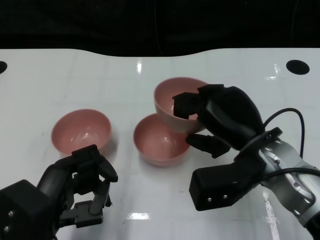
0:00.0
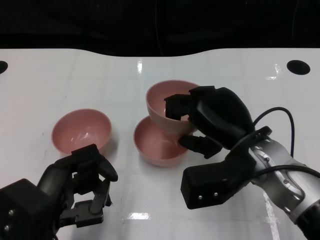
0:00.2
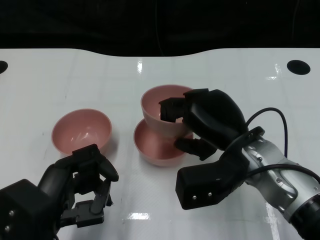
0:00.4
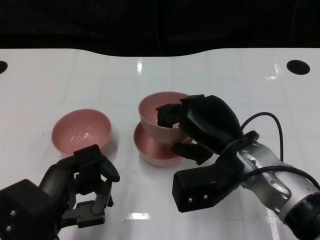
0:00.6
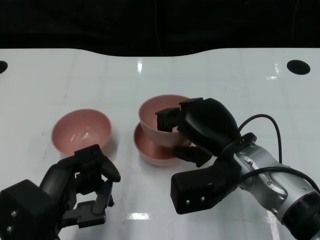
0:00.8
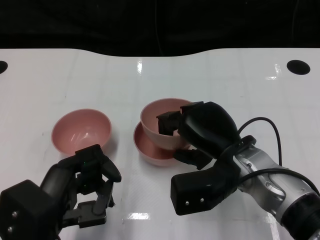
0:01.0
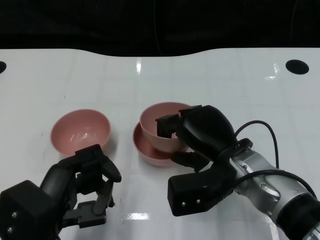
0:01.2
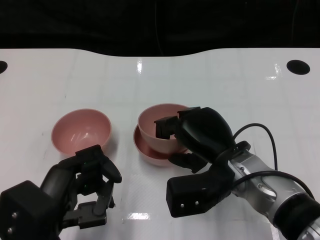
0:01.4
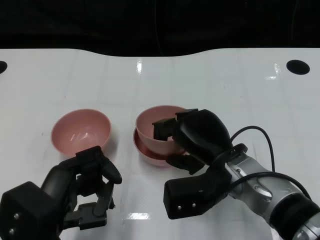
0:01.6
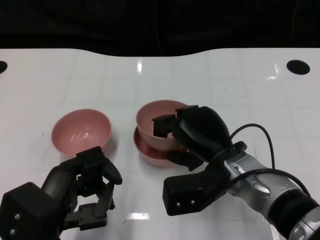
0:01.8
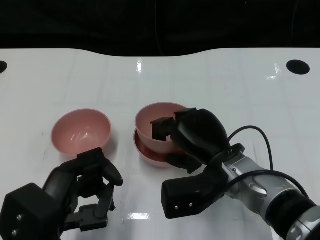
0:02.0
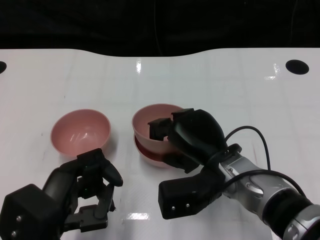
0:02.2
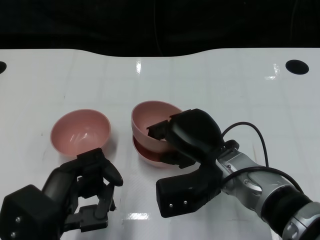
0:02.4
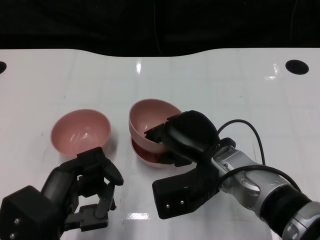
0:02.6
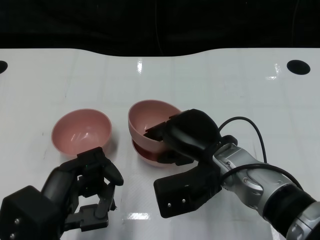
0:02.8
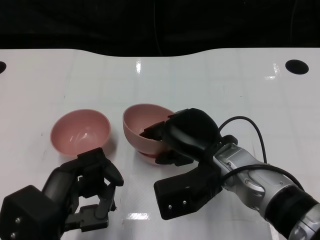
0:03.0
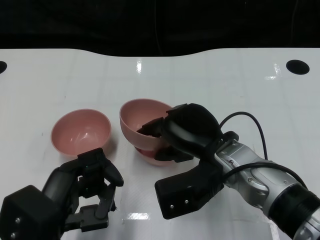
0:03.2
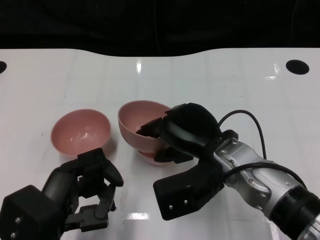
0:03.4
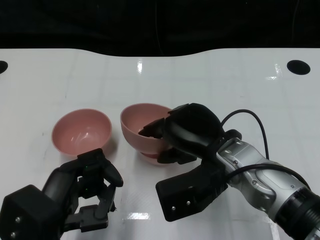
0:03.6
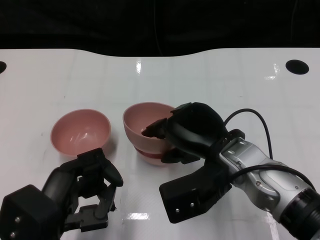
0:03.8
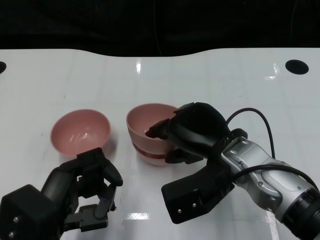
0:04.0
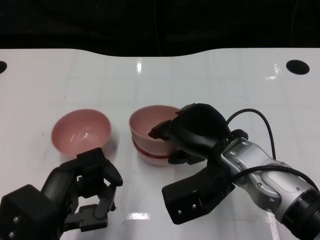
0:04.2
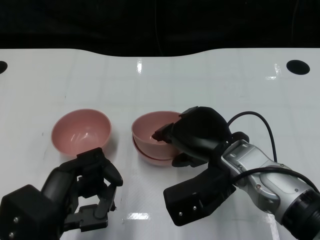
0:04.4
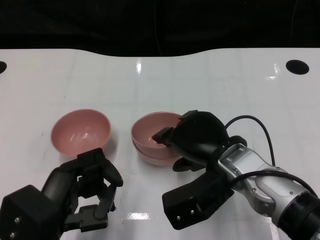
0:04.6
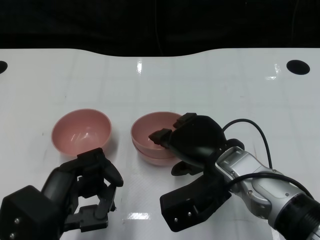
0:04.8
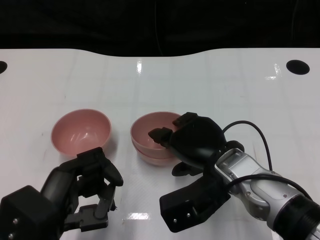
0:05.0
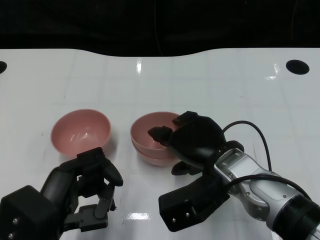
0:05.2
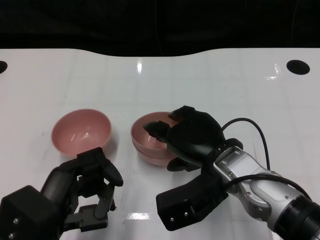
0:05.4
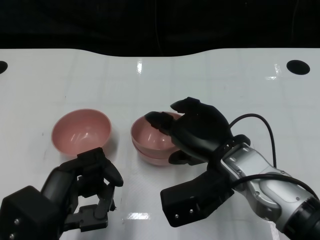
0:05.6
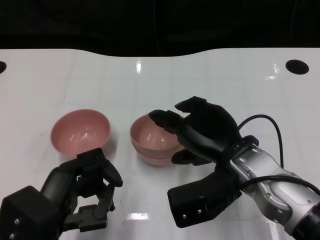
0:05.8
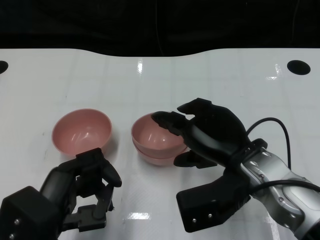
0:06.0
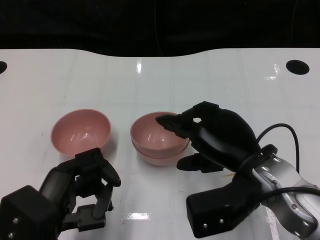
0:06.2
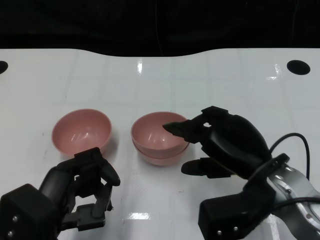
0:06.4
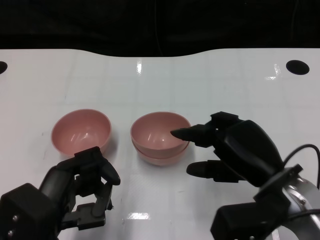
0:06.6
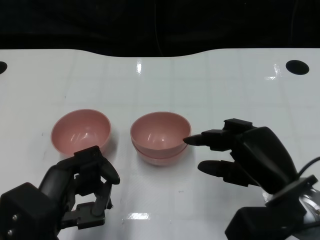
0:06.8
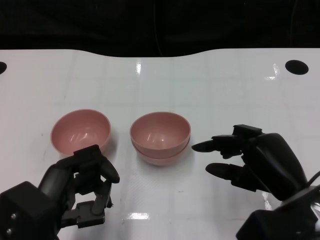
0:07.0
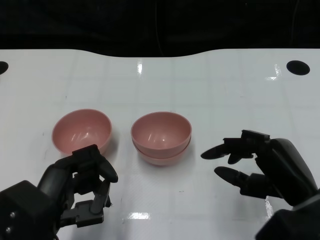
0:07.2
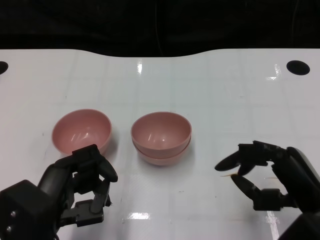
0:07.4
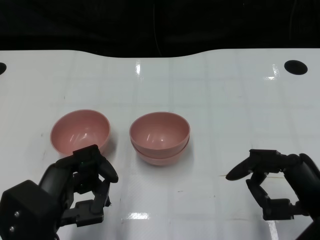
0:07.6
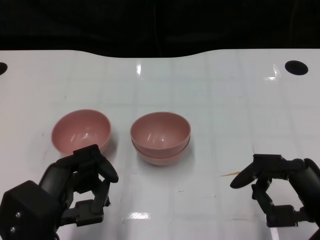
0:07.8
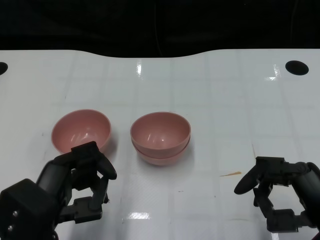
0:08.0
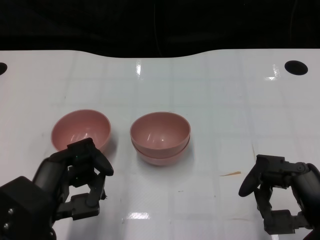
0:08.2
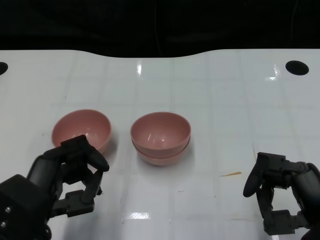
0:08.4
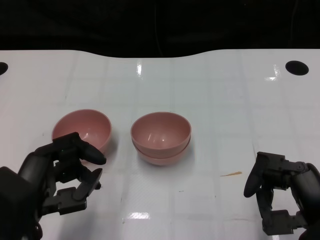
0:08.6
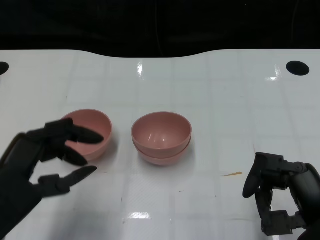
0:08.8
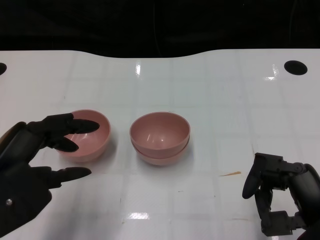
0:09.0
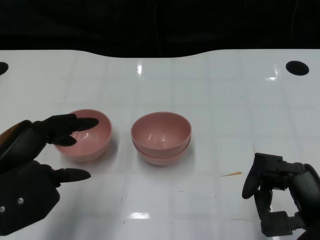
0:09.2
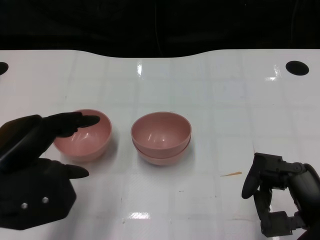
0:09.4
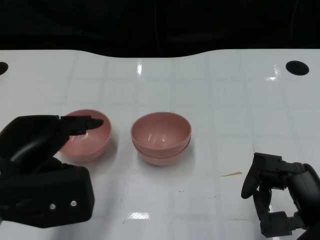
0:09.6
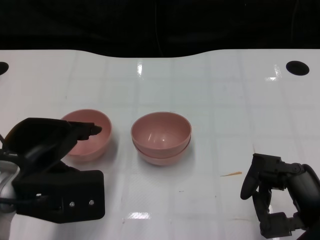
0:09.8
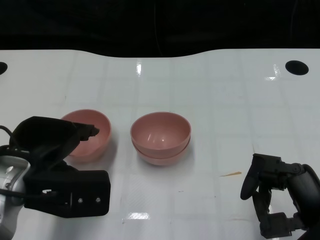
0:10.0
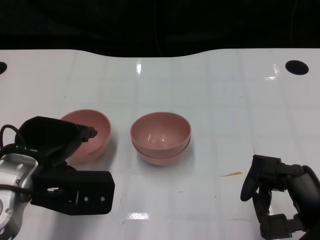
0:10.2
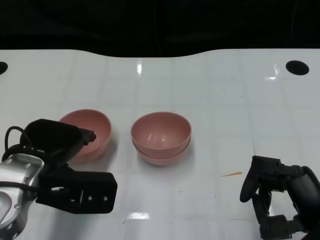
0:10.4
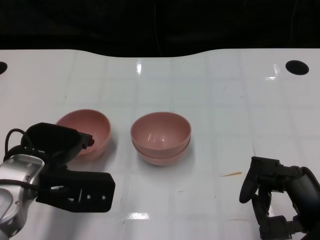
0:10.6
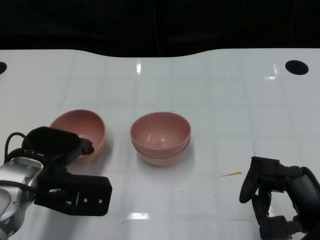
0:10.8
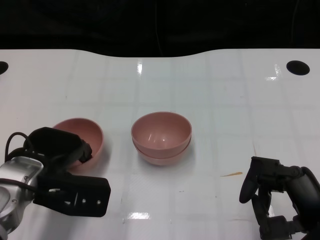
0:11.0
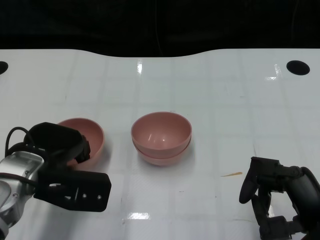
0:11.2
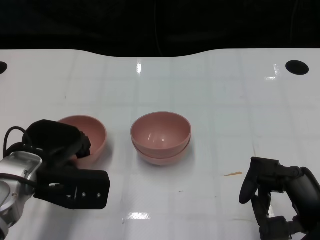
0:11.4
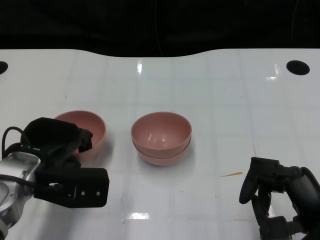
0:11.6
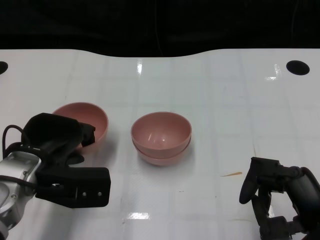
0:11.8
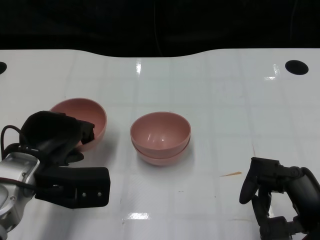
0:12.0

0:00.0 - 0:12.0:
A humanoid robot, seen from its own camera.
Task of the whole recording: Pick up the bowl on one side of the table and place it on top of the middle bowl, then pick up the bowl on the other side of the table and place it on top of the middle bowls.
Step, 0:00.0 - 0:06.2: Place the bowl on the right onto the bowl in the middle with right gripper.
Step, 0:06.4 - 0:11.6: Grasp the bowl on the left with the left gripper.
0:00.0 - 0:01.6: The right hand moves about 5 cm.
0:01.6 - 0:03.0: There are only small adjustments of the hands.
0:03.0 - 0:06.0: There are only small adjustments of the hands.
0:06.0 - 0:07.6: The right hand travels to the right and backward by about 15 cm.
0:07.6 - 0:09.0: The left hand travels upward by roughly 5 cm.
0:09.0 - 0:10.4: The left hand shifts some 5 cm forward.
0:10.4 - 0:12.0: There are only small adjustments of the hands.

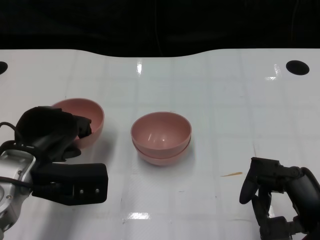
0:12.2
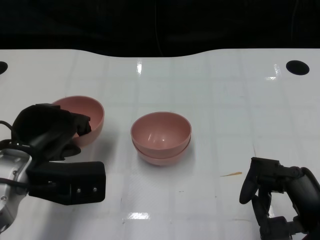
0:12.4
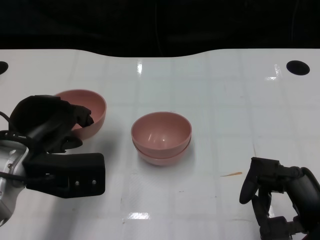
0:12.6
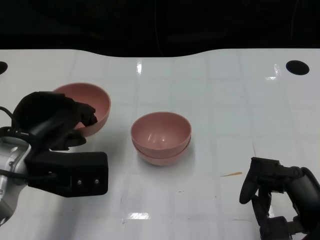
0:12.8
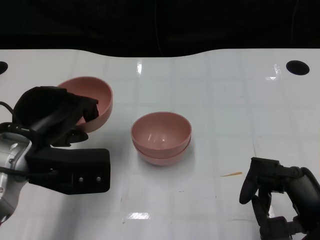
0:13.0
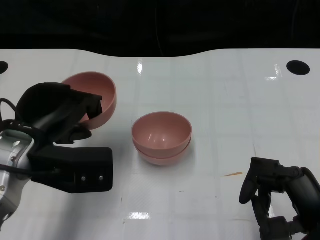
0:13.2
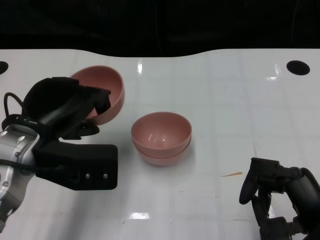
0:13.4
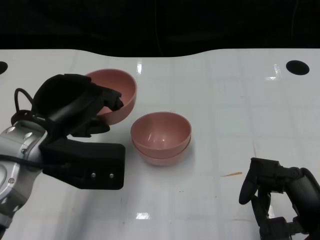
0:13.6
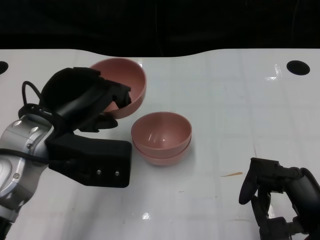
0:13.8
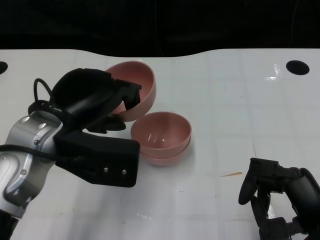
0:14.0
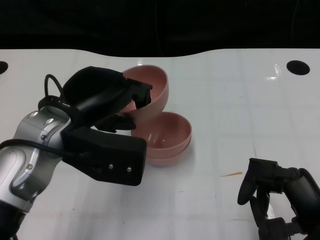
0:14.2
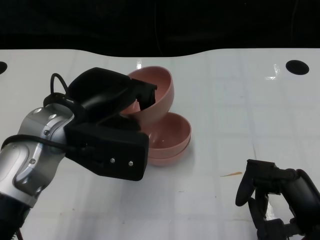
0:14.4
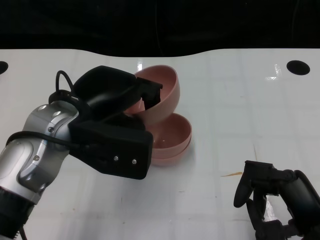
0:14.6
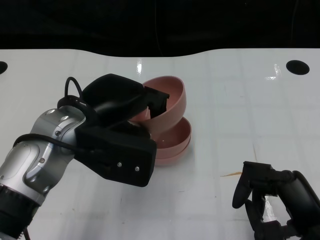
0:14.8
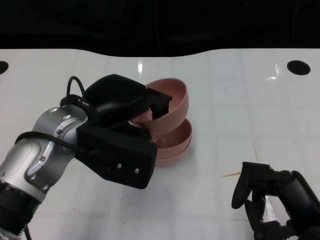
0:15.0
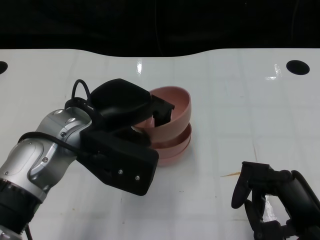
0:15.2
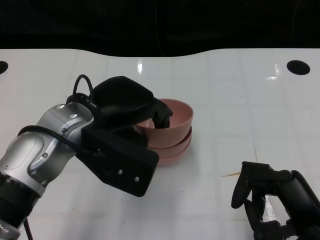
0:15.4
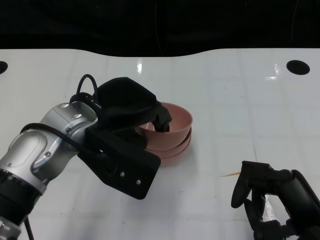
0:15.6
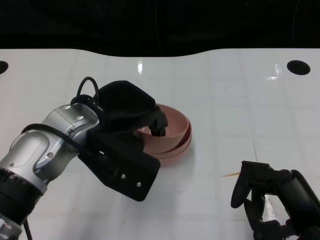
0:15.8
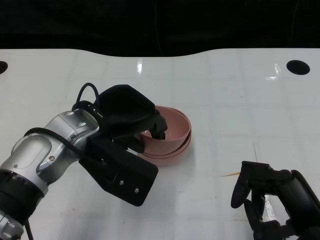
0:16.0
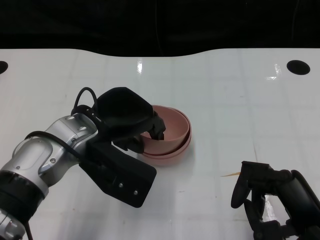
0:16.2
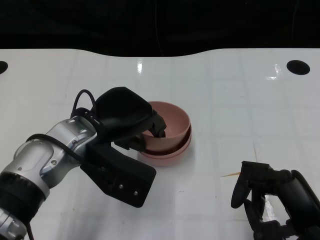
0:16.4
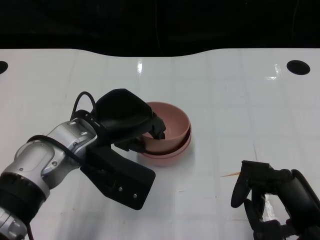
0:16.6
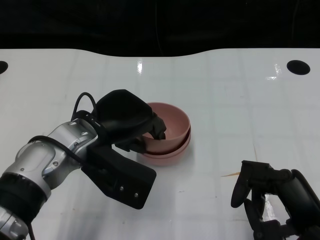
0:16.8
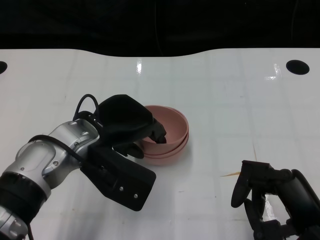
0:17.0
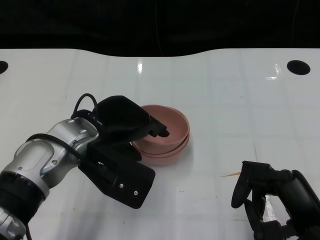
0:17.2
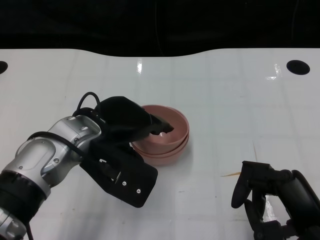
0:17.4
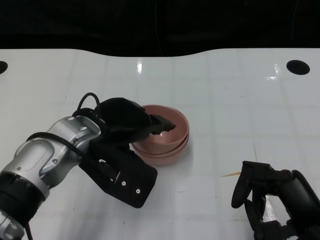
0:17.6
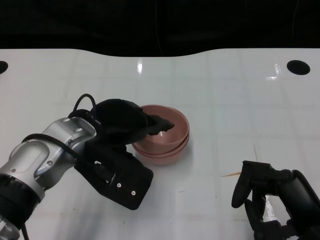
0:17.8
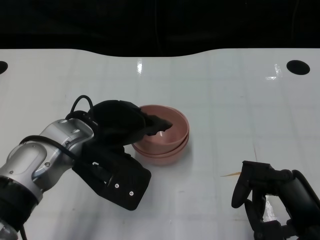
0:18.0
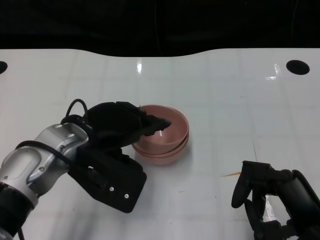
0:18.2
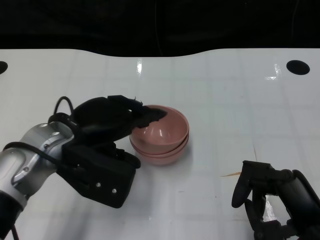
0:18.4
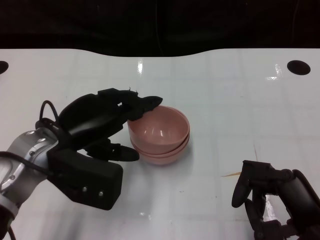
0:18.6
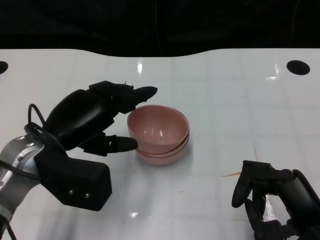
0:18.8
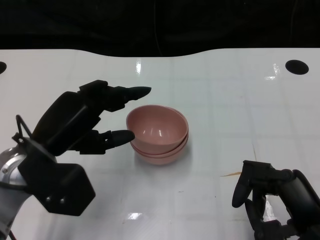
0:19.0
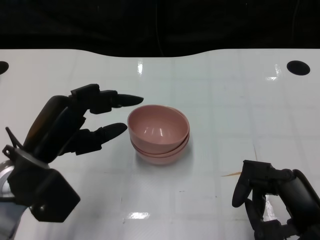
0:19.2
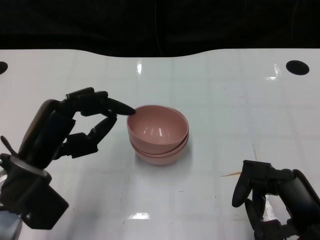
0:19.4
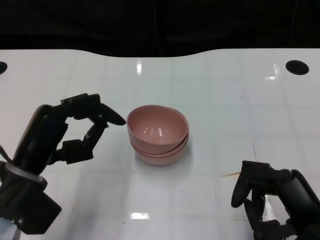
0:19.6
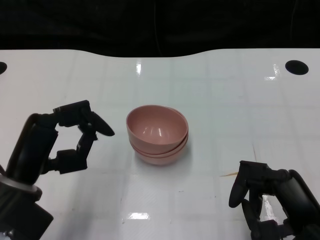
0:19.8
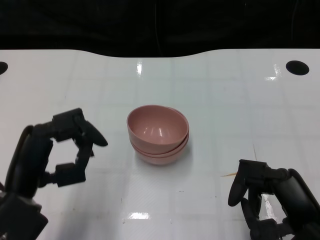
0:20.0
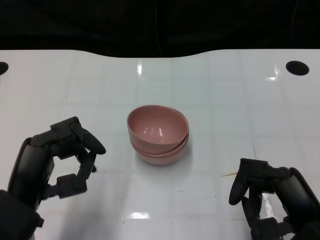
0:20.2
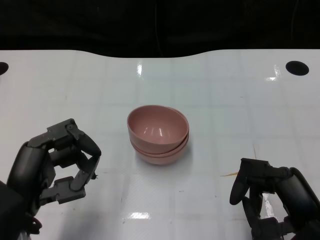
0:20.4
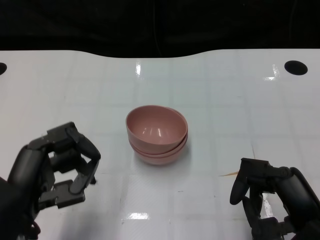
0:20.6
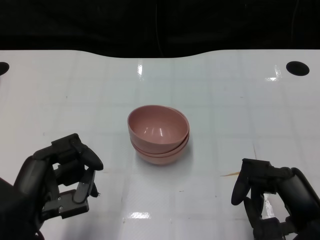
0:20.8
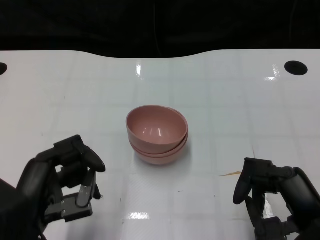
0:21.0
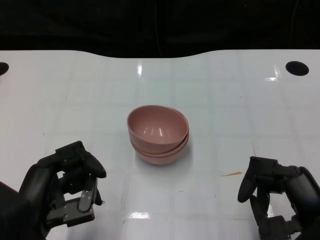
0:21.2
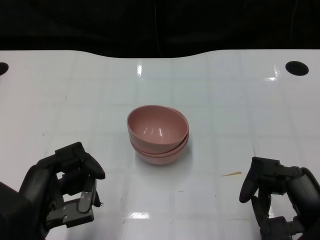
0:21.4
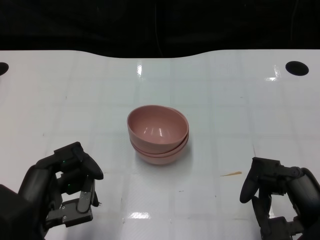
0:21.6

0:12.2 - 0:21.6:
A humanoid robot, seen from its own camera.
Task of the whole recording: Pick up the bowl on one side of the table and place it on top of the middle bowl, then pick up the bowl on the other side of the table and place it on top of the middle bowls.
Step, 0:12.2 - 0:18.6: Place the bowl on the left onto the bowl in the middle with left gripper.
0:12.2 - 0:13.8: The left hand is displaced upward by approximately 5 cm.
0:15.4 - 0:18.4: The hands move only a little.
0:18.4 - 0:20.0: The left hand travels backward and to the left by approximately 10 cm.

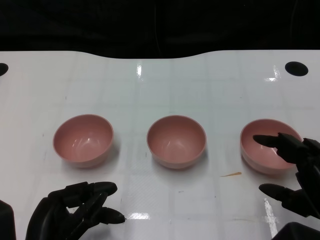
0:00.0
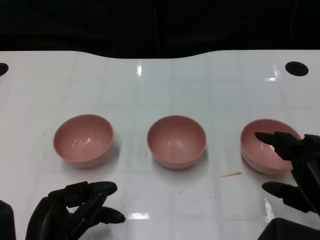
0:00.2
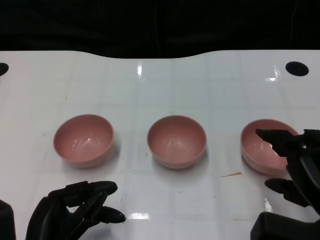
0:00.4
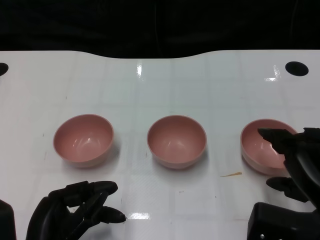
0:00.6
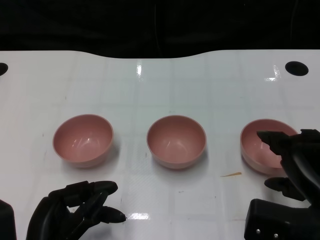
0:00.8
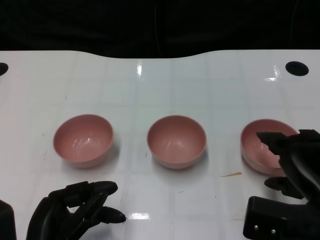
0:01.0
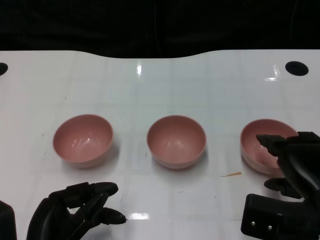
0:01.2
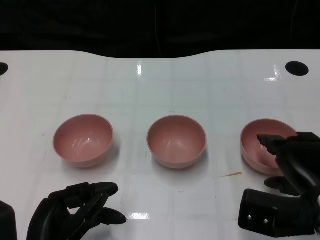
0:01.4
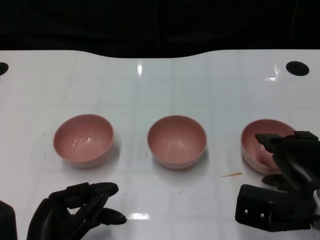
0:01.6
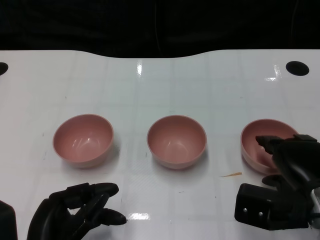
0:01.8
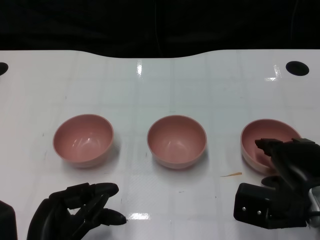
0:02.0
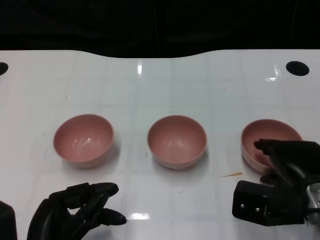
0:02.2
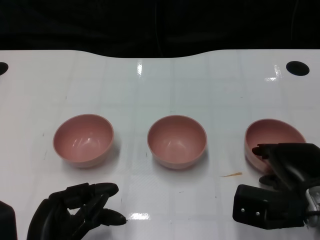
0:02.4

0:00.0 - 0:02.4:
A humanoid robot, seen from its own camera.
Task of the whole recording: Pick up the bowl on one side of the table and place it on top of the middle bowl, then pick up the bowl on the other side of the table and place it on top of the middle bowls.
0:00.0 - 0:01.2: The right hand goes approximately 5 cm forward.
0:01.2 - 0:02.4: The hands make only small movements.
